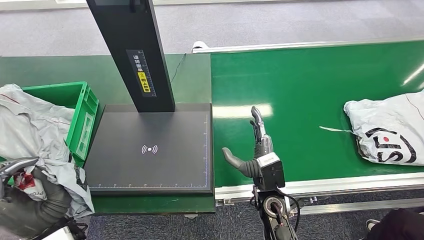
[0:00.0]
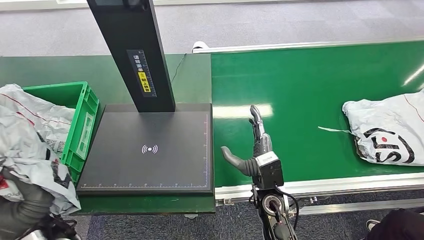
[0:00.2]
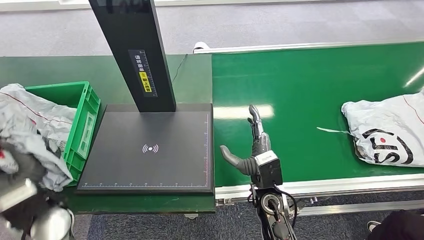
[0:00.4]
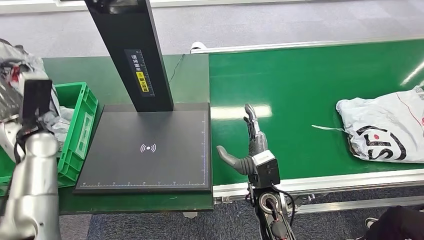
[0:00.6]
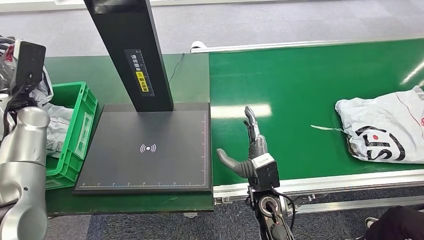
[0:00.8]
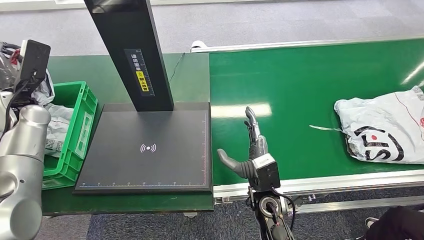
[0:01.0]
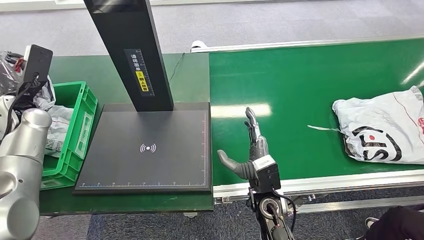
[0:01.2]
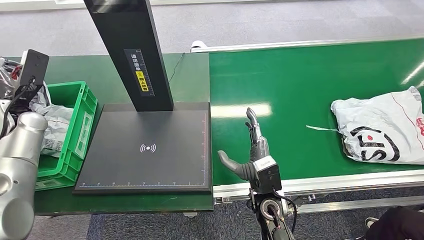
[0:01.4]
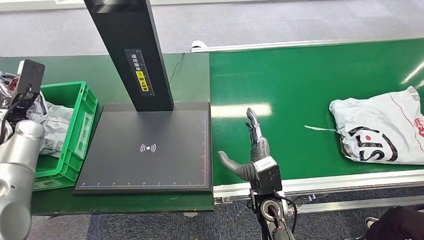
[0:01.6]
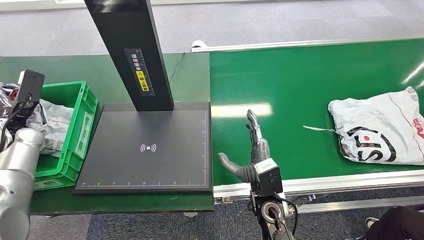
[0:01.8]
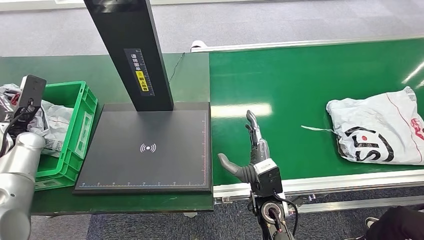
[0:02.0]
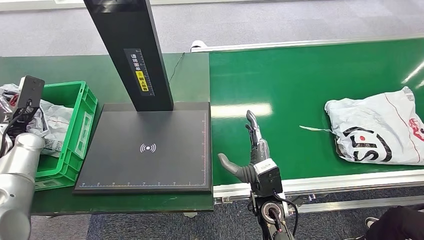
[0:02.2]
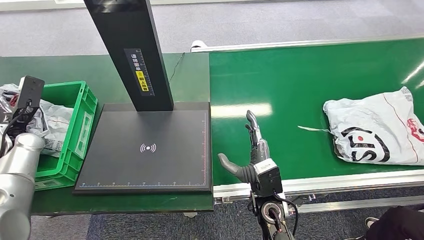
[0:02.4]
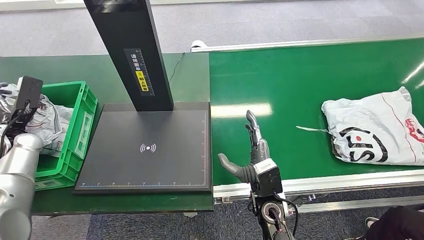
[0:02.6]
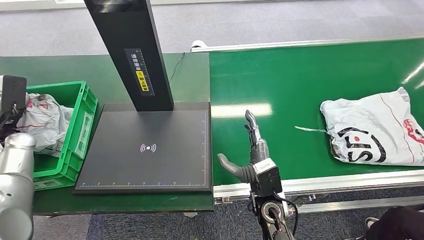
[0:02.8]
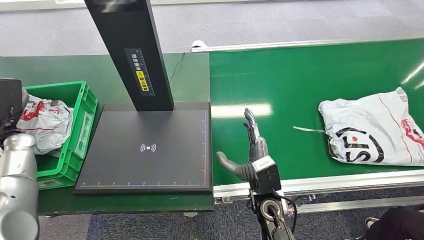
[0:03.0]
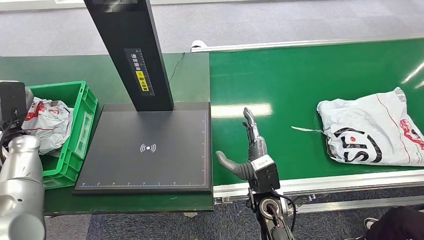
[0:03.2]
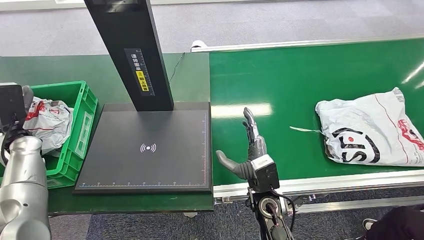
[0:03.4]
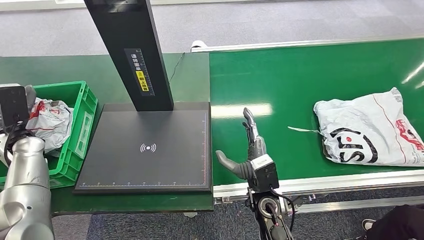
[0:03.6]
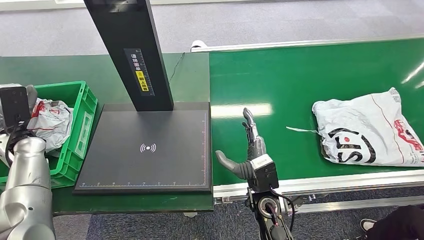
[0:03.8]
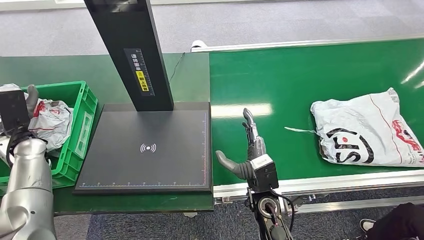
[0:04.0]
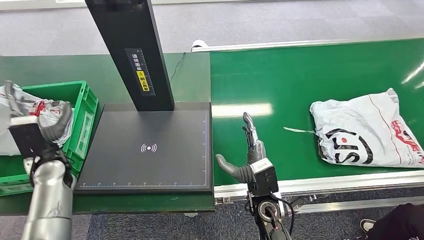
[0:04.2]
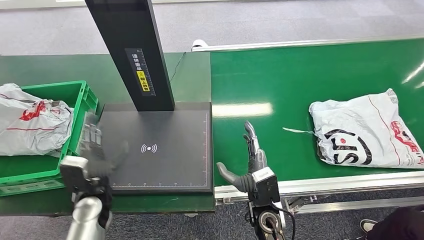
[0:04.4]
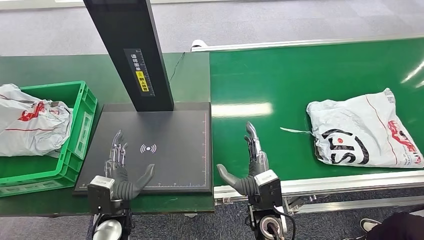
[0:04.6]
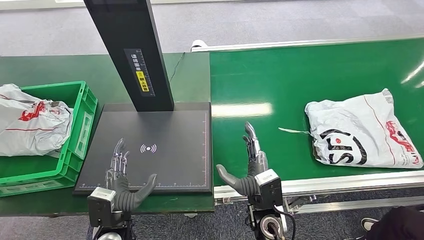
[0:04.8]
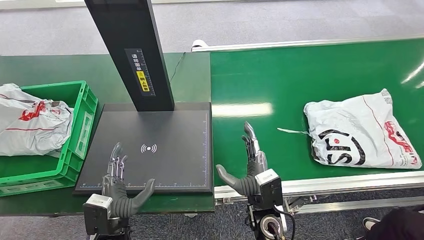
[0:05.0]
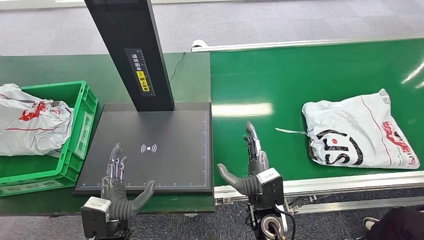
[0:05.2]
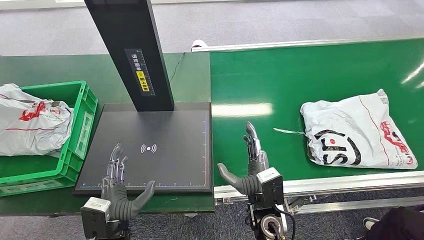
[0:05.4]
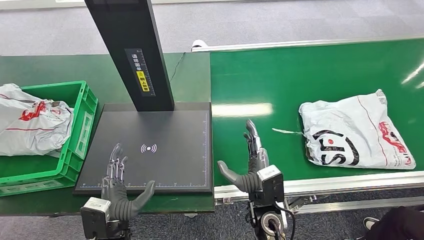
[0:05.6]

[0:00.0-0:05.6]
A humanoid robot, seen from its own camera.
Step, 0:00.0 to 0:05.6: Place the package into the parcel locker.
0:01.4 to 0:02.8: The left hand travels downward by about 5 cm.
0:02.8 to 0:04.2: The left hand shifts approximately 10 cm to the right.
0:04.2 to 0:05.6: The left hand moves backward and to the right, some 25 cm.
